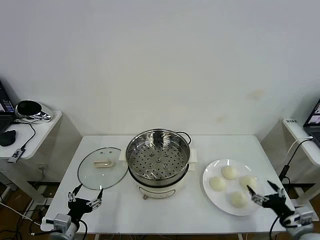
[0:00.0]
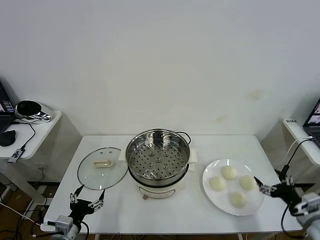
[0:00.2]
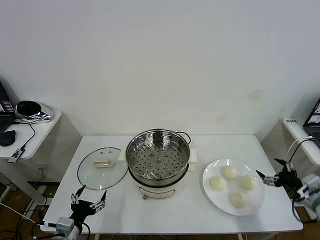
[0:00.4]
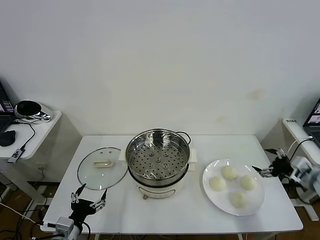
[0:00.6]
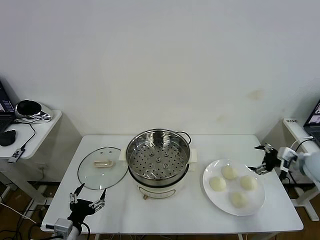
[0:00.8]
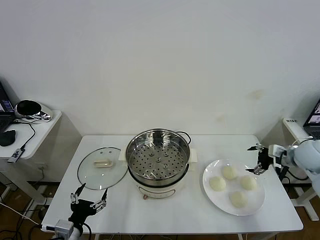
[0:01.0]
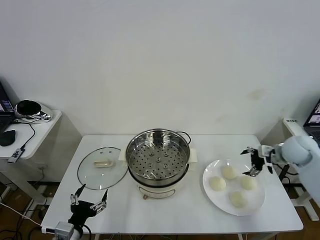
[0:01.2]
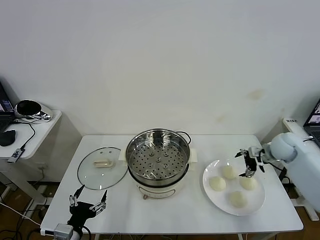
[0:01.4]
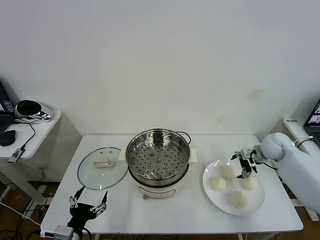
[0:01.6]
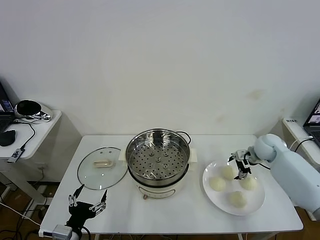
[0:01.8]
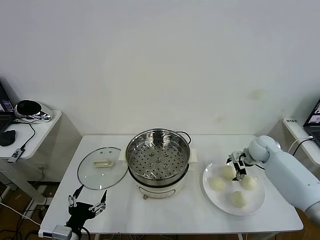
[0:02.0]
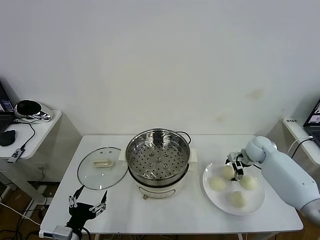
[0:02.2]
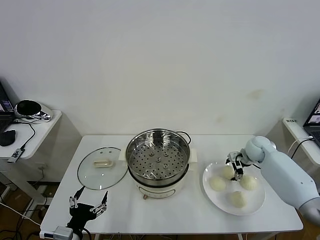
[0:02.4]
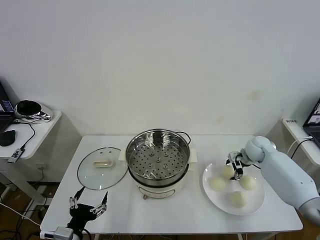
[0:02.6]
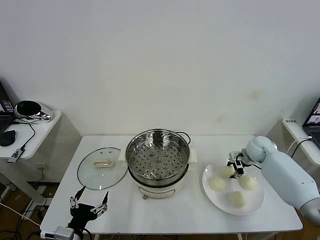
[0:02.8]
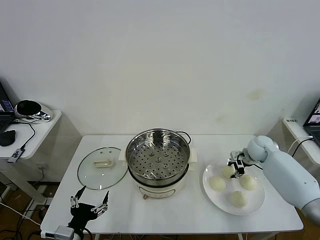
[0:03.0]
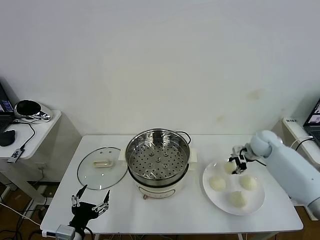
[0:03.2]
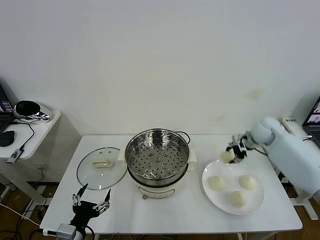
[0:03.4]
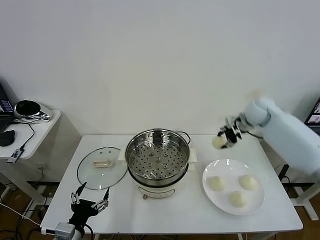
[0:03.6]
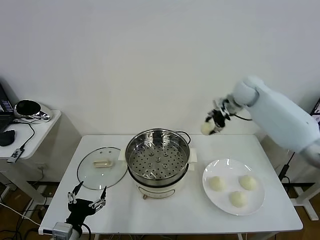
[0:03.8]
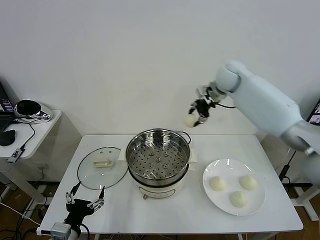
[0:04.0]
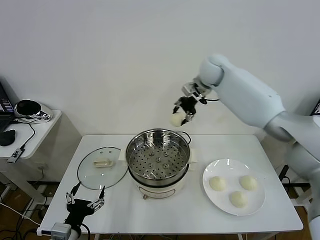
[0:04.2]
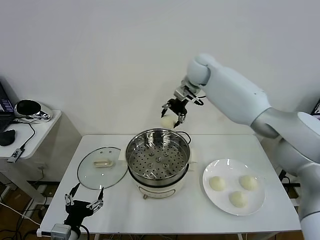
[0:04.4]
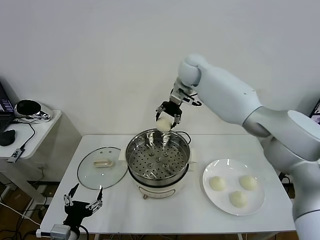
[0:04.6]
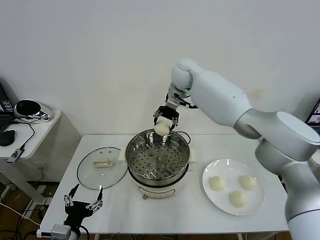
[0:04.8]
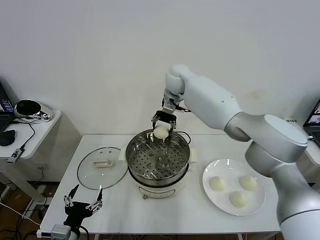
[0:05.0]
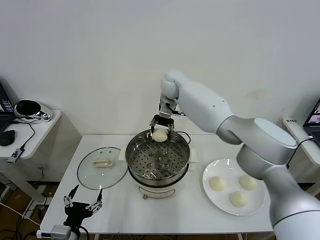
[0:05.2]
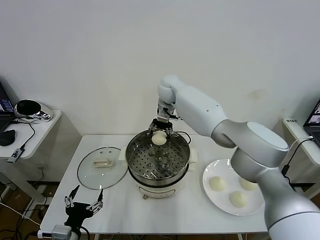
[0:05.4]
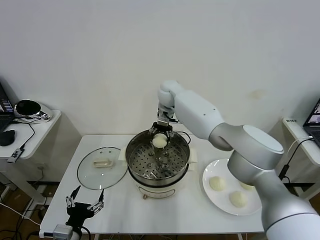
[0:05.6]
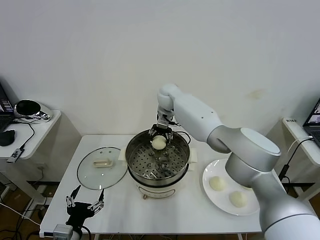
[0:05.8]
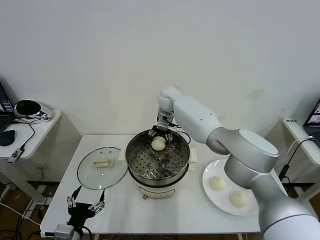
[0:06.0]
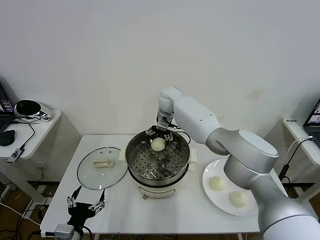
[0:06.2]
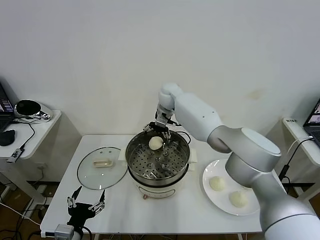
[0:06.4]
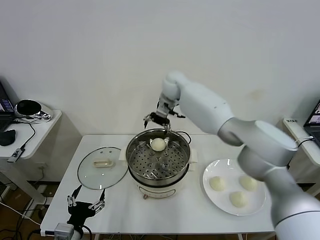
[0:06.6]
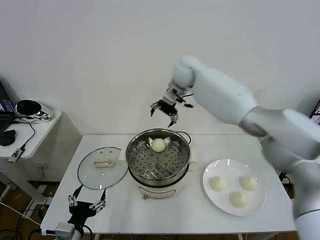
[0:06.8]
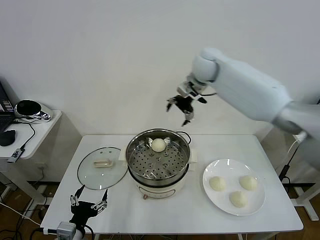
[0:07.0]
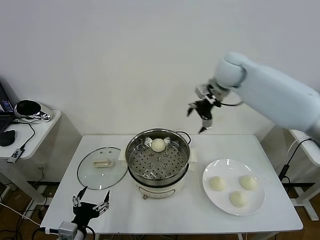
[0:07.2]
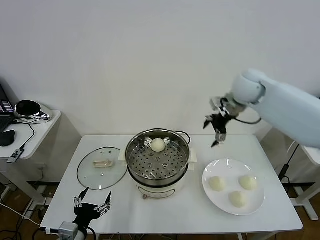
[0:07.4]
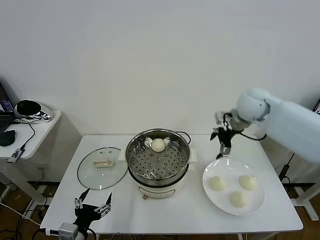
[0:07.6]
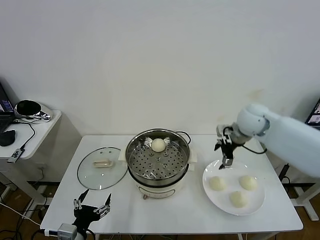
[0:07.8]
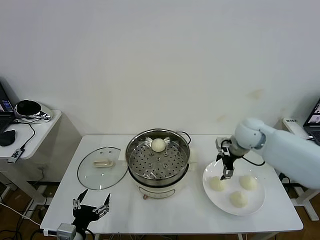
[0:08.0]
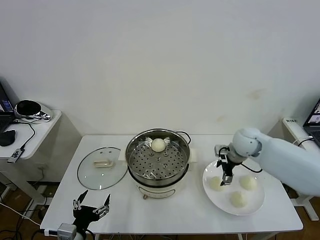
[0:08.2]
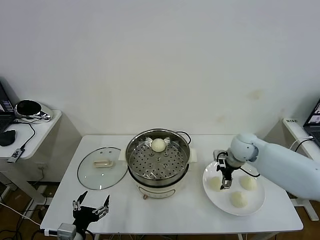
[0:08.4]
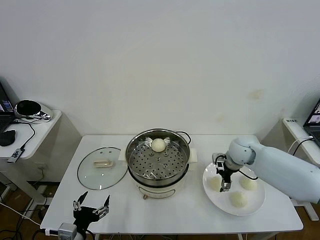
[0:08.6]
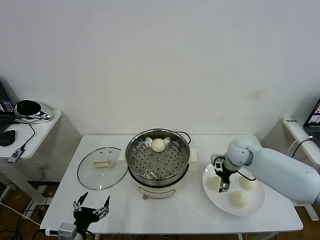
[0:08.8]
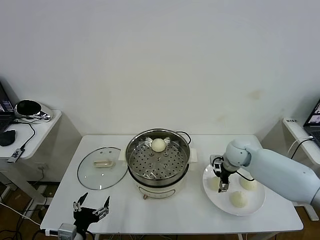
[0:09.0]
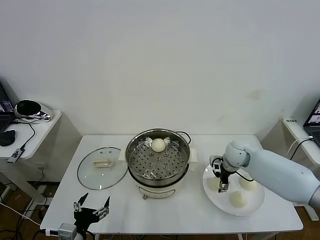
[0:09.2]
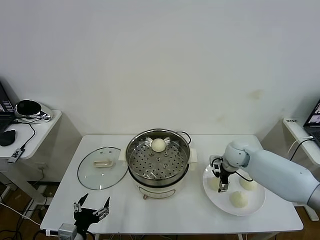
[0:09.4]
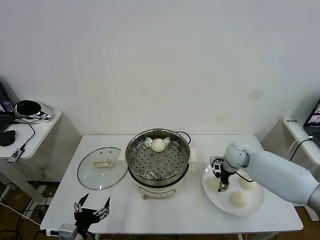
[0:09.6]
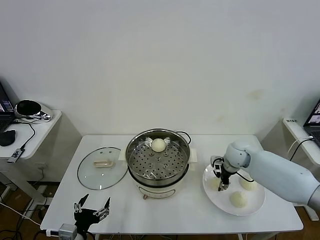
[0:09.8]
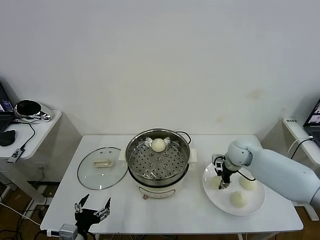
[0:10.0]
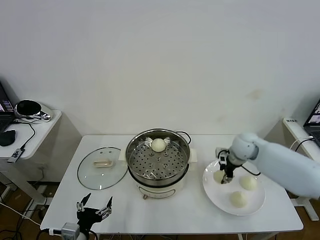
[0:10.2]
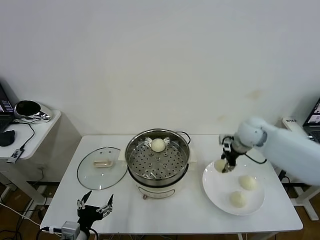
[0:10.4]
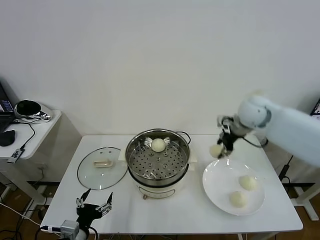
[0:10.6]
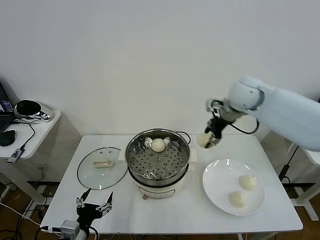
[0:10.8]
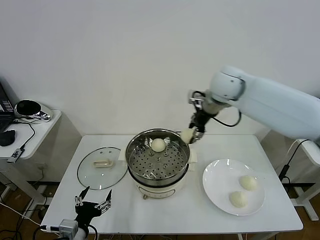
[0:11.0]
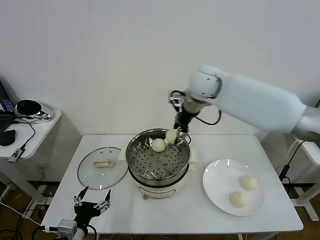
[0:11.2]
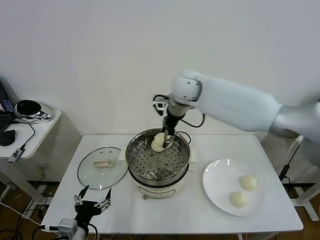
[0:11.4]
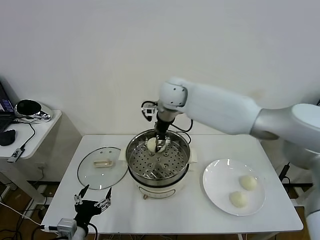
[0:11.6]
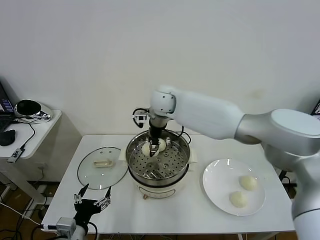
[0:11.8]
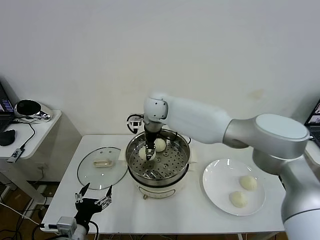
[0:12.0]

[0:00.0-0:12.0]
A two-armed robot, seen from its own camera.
Task of the whole recording: take steamed baozi put them in steamer then cover it.
Step, 0:00.0 to 0:02.8: Grasp the baozi in the plate with right gripper.
Step, 0:03.2 to 0:06.2: Place the baozi on the steamer with right gripper.
Step, 0:06.4 to 0:09.8: Grasp the baozi in the plate with right gripper.
0:01.6 to 0:03.0: The right gripper shifts by about 5 cm, and closes.
0:03.0 to 0:04.4: The right gripper is displaced upward, to the left and forward by approximately 40 cm.
0:04.4 to 0:06.0: The right gripper is displaced downward and to the left by about 15 cm.
0:06.0 to 0:07.6: The right gripper heads to the right and backward, covering some 30 cm, and opens its fingers.
0:07.6 to 0:09.0: The right gripper is displaced downward by roughly 20 cm.
0:09.0 to 0:10.4: The right gripper shifts about 10 cm upward, and closes up.
0:10.4 to 0:12.0: The right gripper moves to the left, some 30 cm.

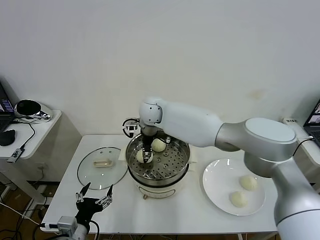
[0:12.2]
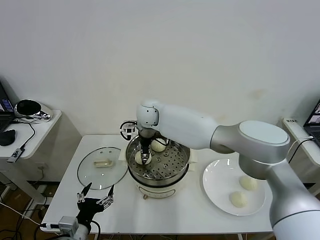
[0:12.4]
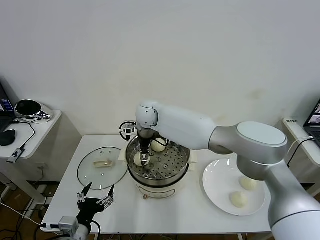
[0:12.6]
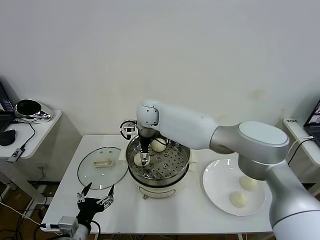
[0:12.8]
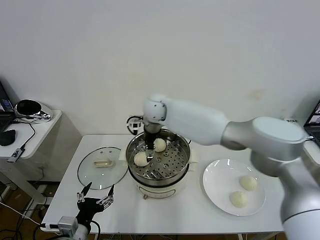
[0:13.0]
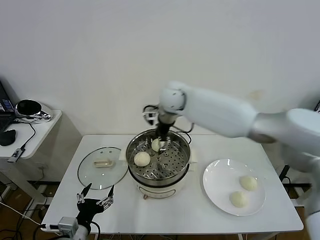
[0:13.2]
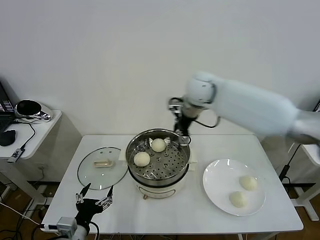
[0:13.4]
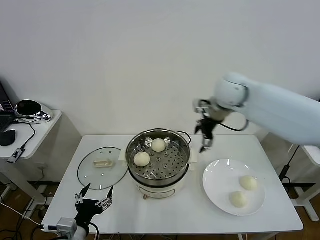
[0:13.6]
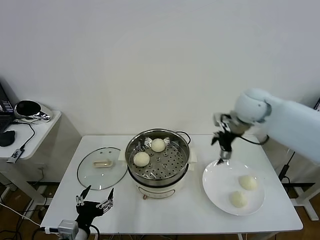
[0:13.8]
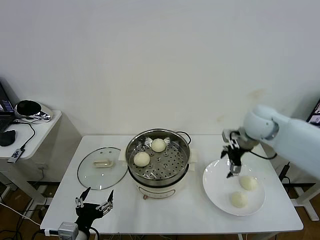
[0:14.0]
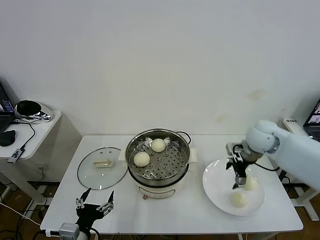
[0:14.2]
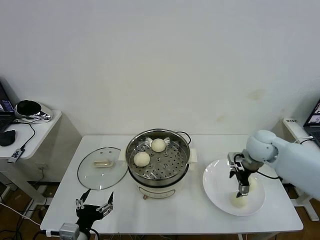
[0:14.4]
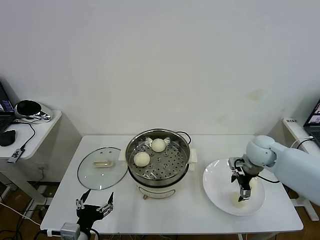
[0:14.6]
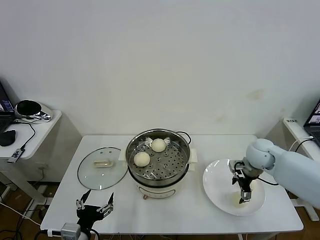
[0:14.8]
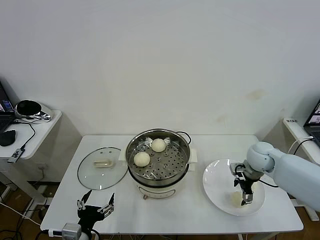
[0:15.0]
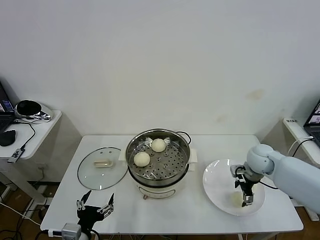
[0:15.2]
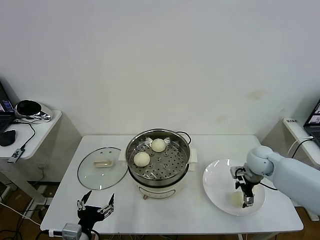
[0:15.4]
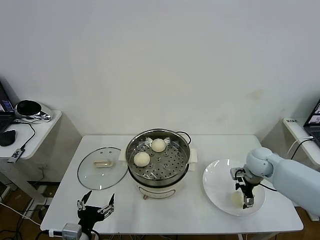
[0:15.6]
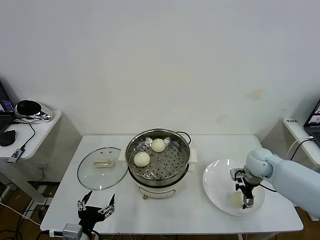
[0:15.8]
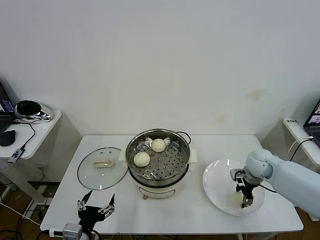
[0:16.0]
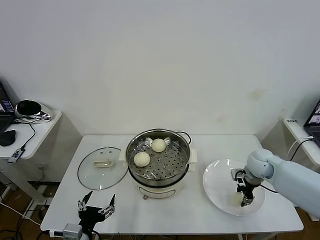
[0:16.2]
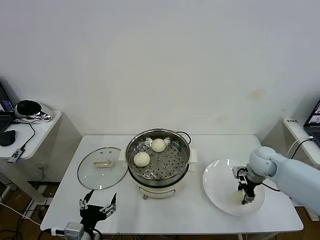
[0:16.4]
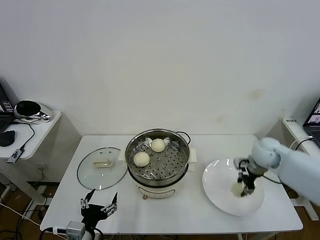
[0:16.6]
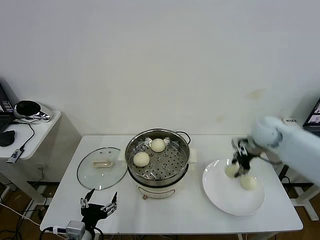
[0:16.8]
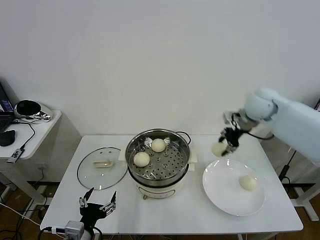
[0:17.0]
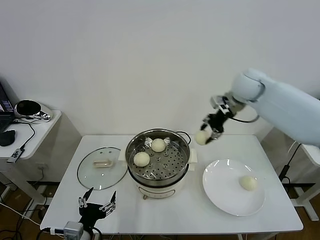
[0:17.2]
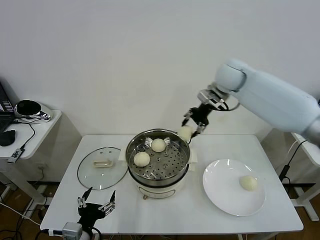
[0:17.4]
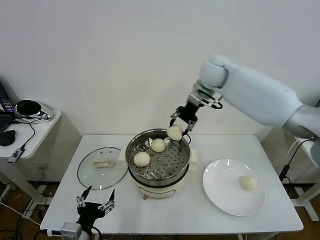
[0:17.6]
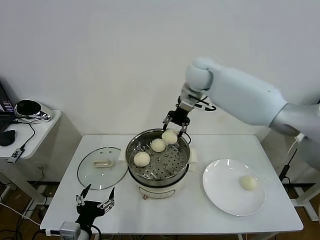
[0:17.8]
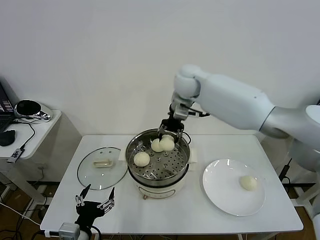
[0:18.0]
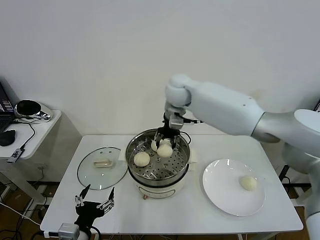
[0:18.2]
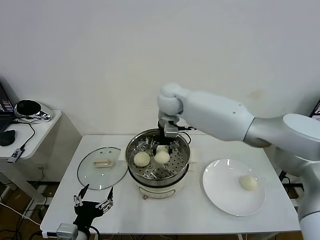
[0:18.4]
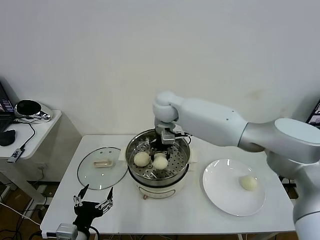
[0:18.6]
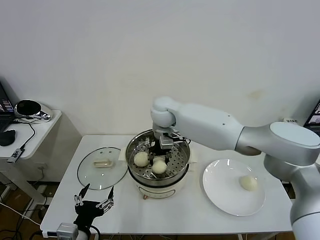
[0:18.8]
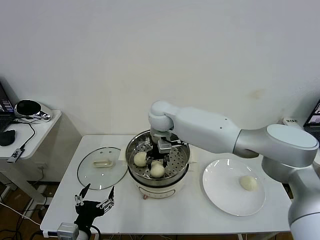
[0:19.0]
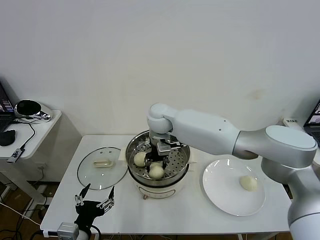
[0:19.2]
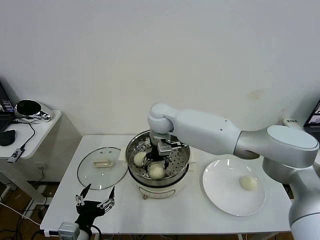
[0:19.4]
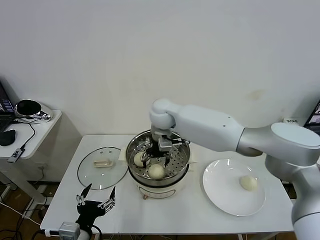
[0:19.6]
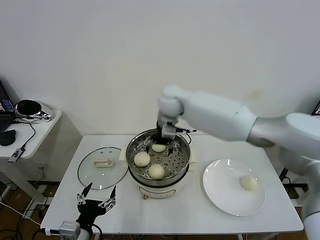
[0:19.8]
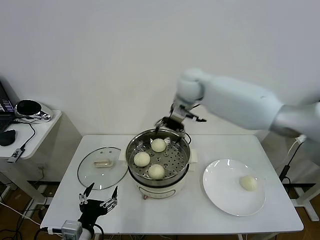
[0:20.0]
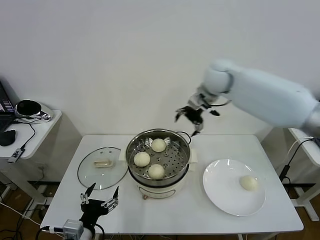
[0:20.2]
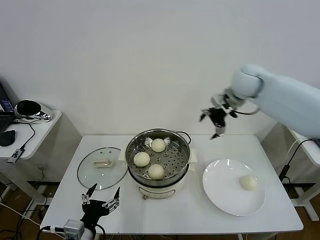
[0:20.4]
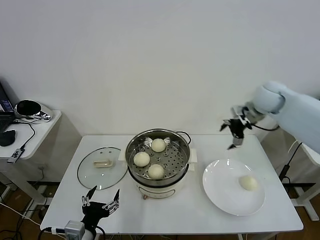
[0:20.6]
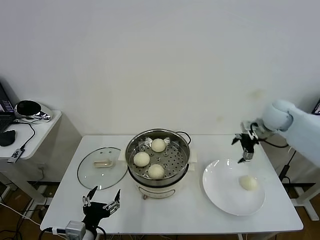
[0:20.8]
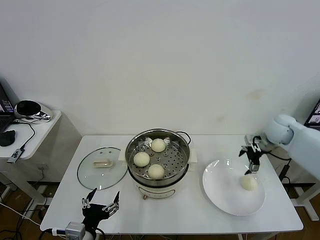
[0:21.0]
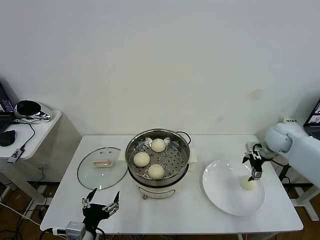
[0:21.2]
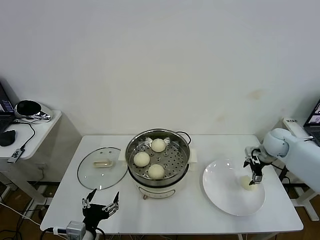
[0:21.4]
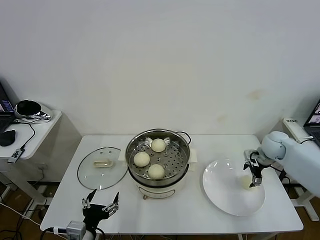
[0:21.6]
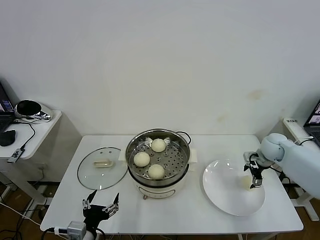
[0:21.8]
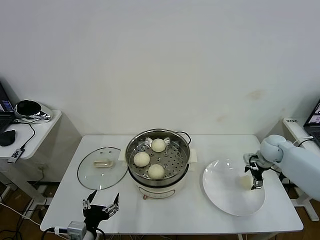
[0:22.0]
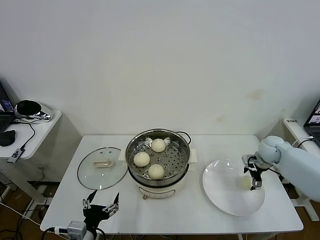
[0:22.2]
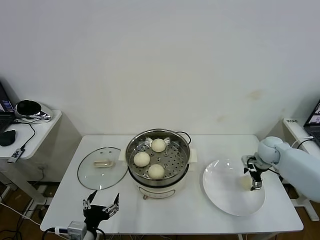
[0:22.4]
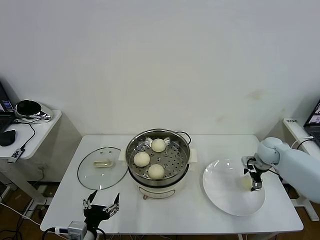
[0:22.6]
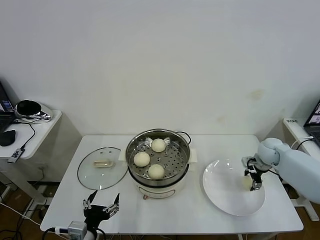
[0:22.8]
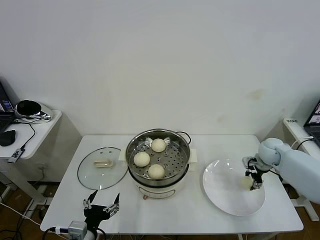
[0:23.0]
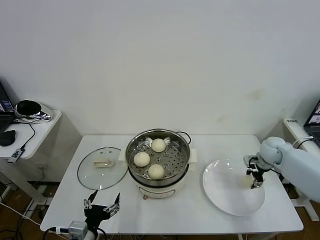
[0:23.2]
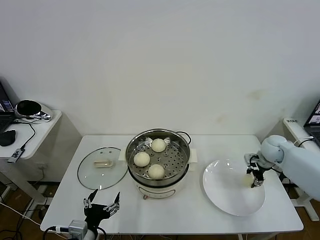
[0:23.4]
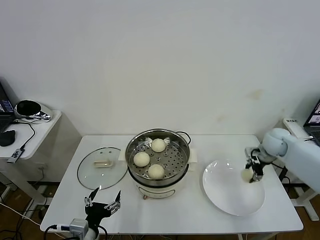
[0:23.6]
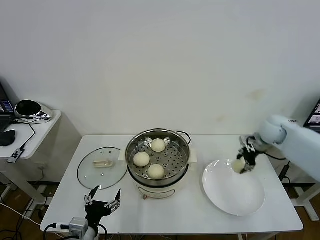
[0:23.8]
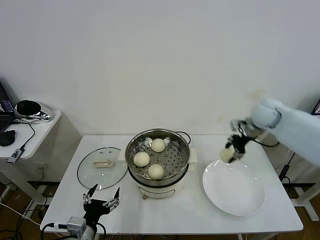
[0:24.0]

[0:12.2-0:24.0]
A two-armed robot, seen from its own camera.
Task of the whole recording: take steamed baozi put them in steamer then cover it.
Step, 0:13.0 to 0:16.2: Grasp the baozi in the plate with right gripper.
Step, 0:16.4 to 0:19.6: Place the baozi on the steamer with right gripper.
Step, 0:19.8 to 0:23.0: Grasp the baozi in the plate with right gripper.
0:12.2 to 0:13.6: The right gripper goes some 25 cm to the right, and opens its fingers.
0:13.6 to 0:15.2: The right gripper heads downward and to the right, covering about 25 cm.
0:15.2 to 0:16.6: The right gripper closes its fingers.
0:16.6 to 0:18.2: The right gripper shifts approximately 35 cm to the left and upward.
0:18.2 to 0:19.6: The right gripper goes approximately 5 cm downward, and opens.
0:19.6 to 0:21.0: The right gripper shifts about 40 cm to the right.
0:21.0 to 0:22.6: The right gripper travels downward by roughly 10 cm.
0:22.6 to 0:24.0: The right gripper is displaced upward and to the left by some 20 cm, and closes its fingers.
